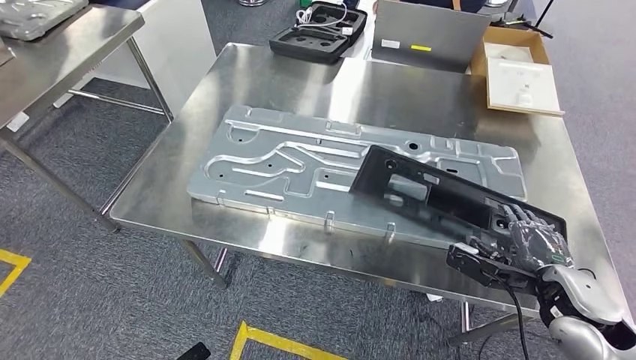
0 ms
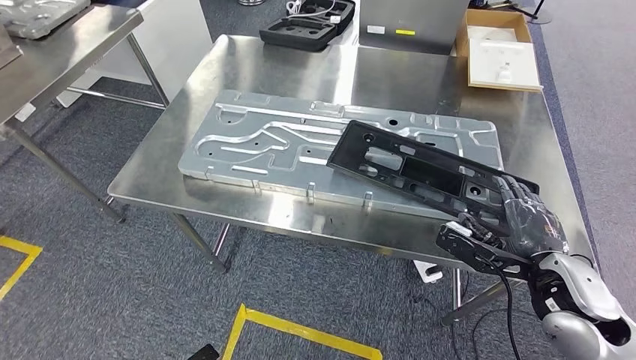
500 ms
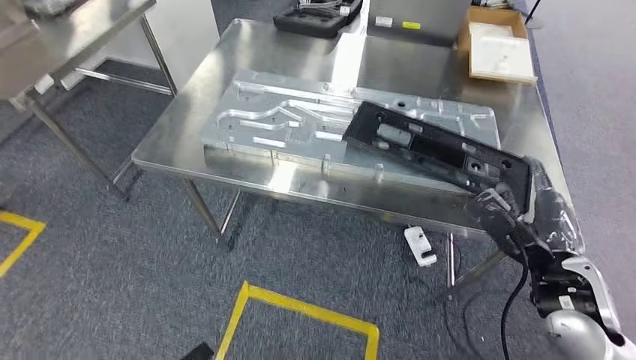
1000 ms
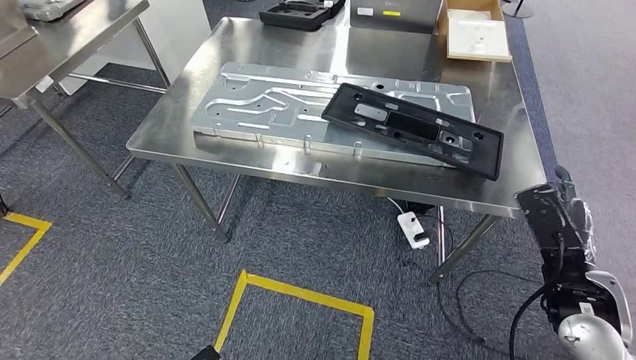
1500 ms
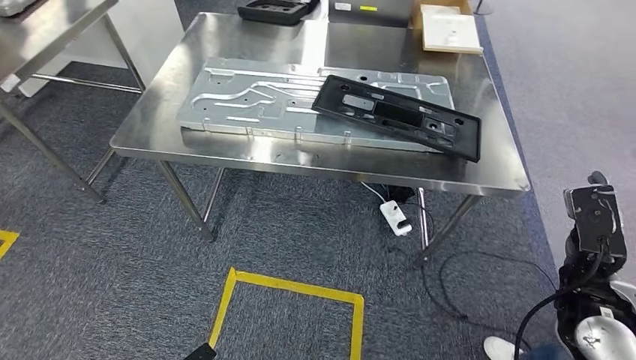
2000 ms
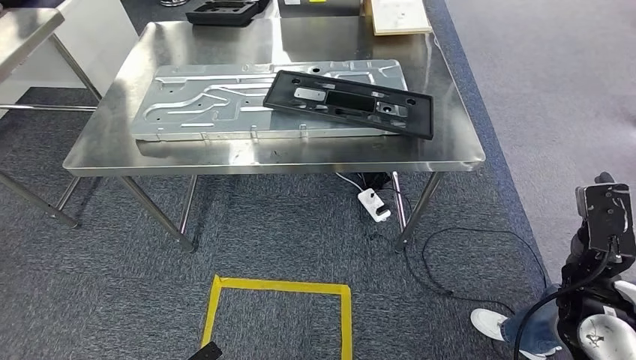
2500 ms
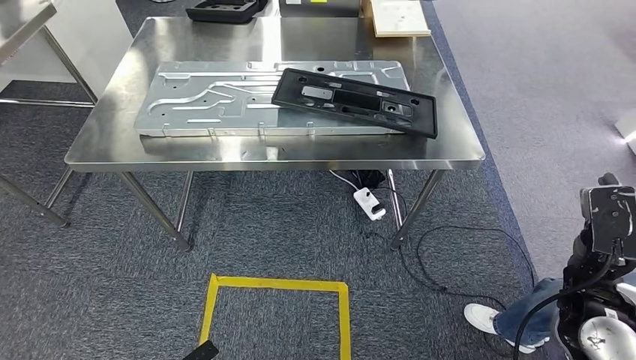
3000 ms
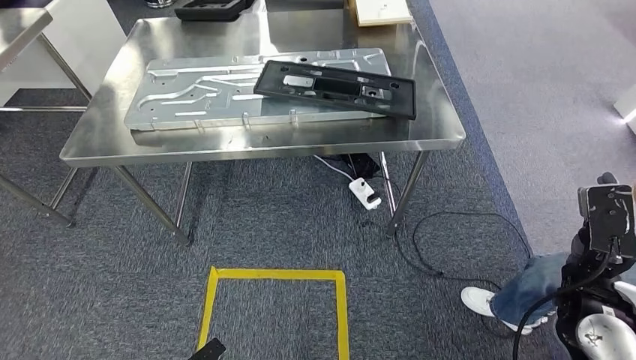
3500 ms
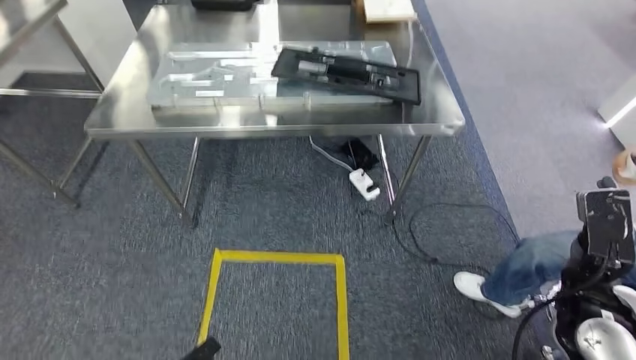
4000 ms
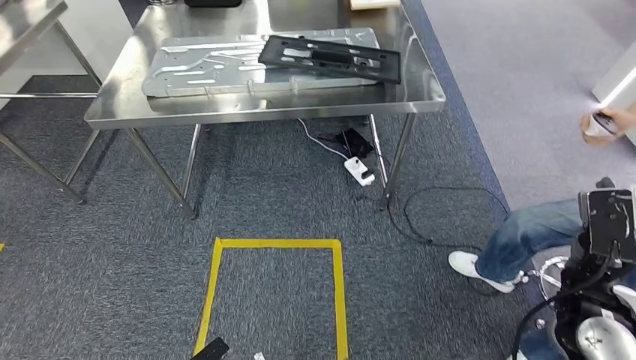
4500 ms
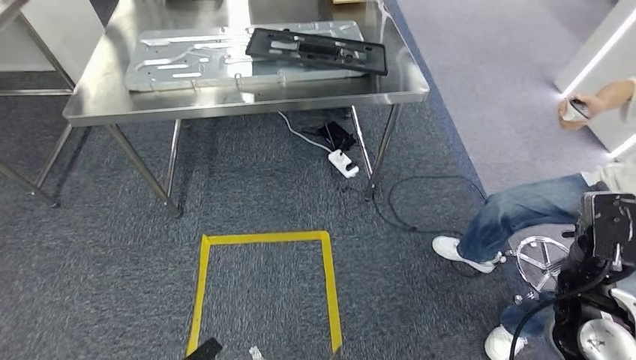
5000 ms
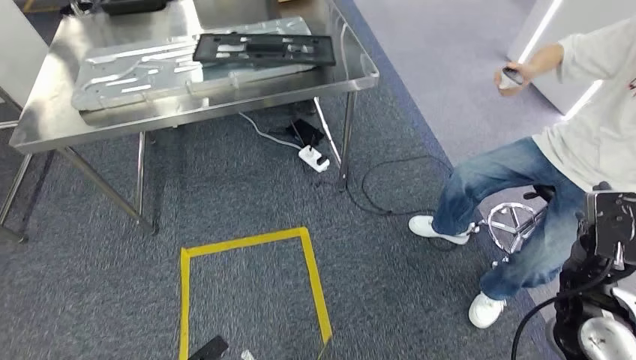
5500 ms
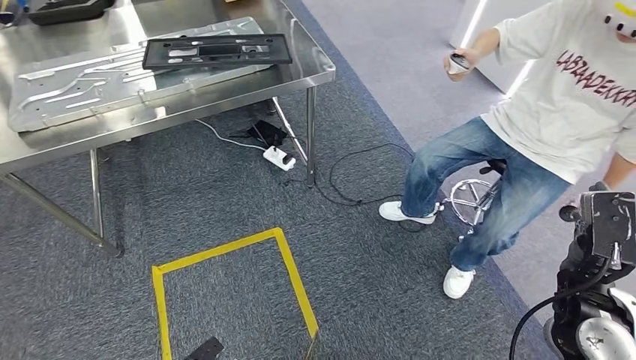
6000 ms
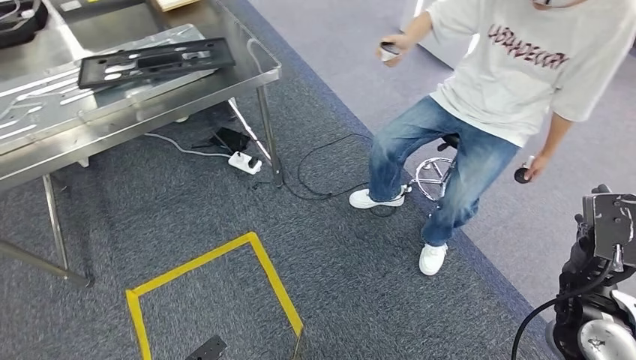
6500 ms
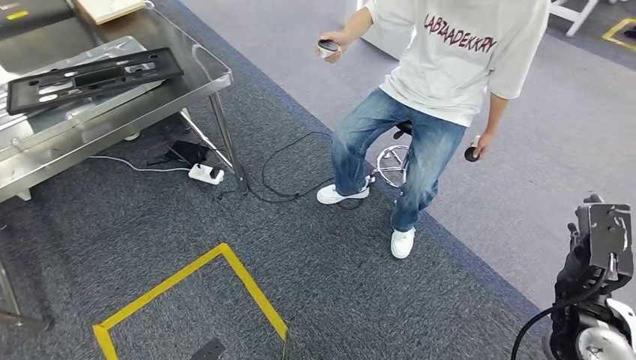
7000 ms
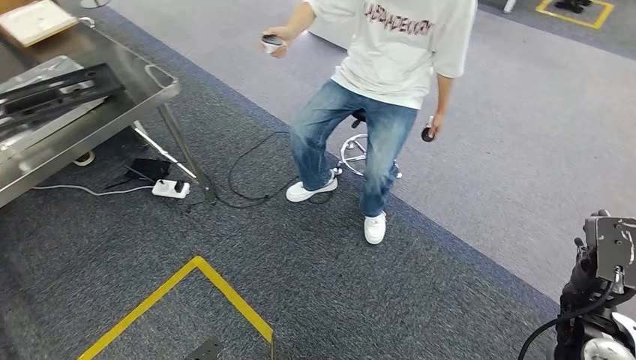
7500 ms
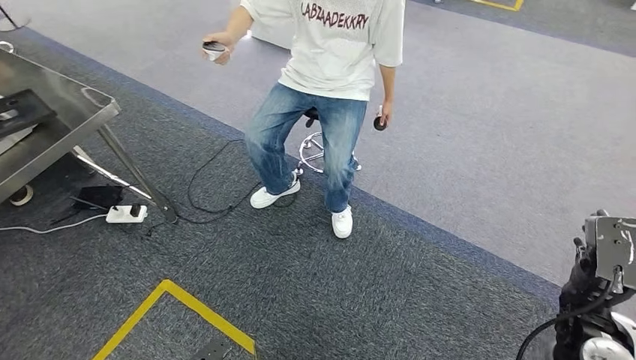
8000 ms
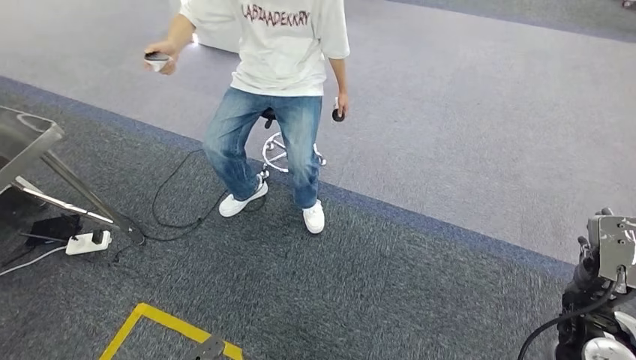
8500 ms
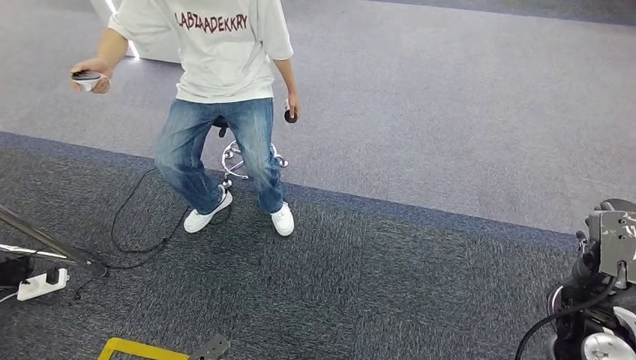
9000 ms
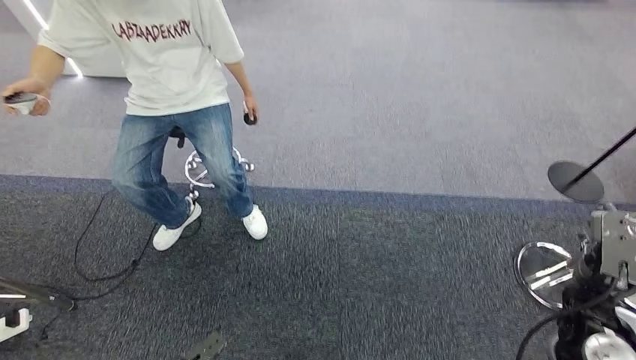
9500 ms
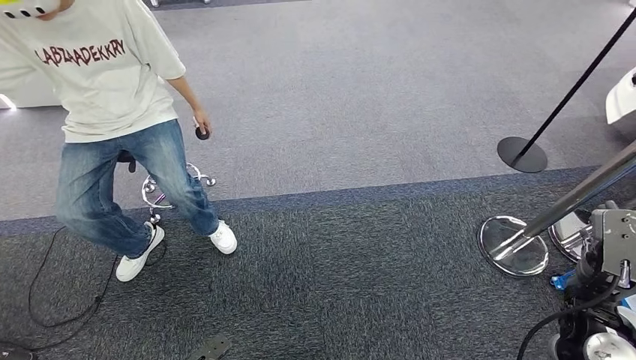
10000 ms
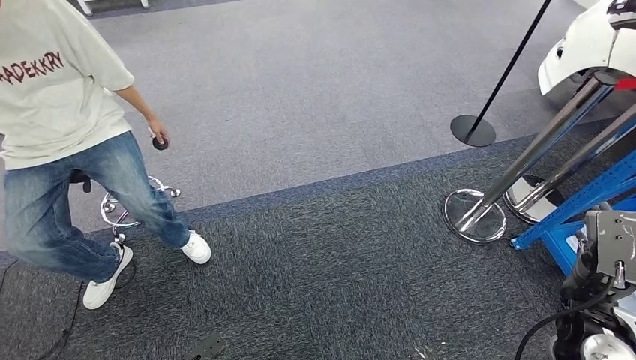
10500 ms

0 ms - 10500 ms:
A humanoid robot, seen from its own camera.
Step, 0 ms - 2500 ms: Insert the large material into the corresponding hole on the workbench.

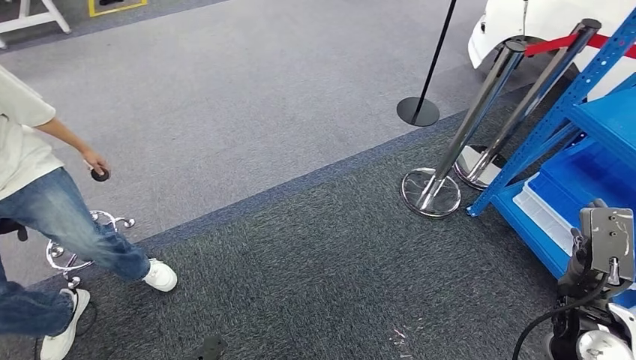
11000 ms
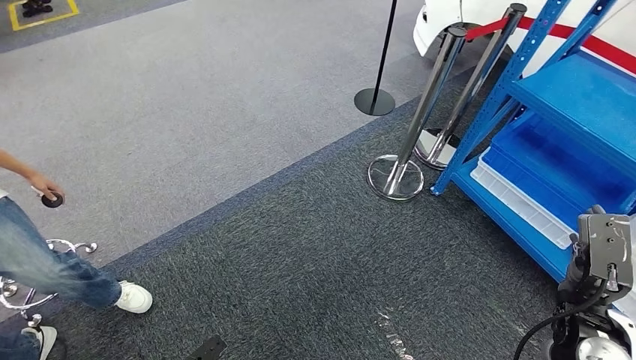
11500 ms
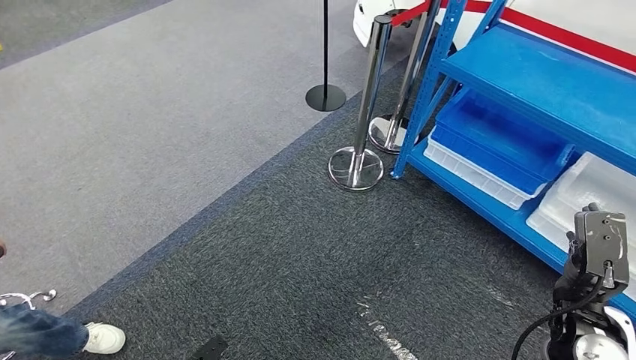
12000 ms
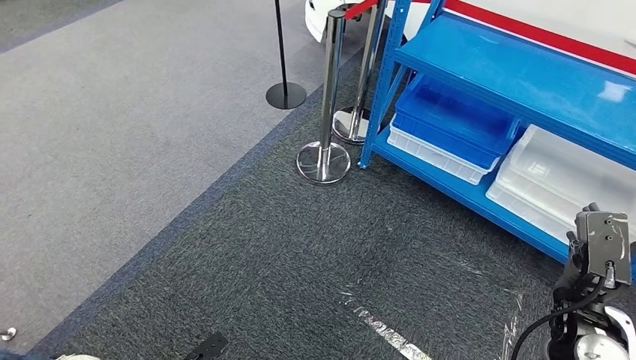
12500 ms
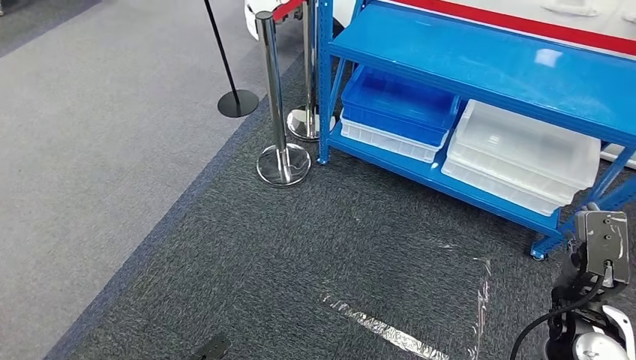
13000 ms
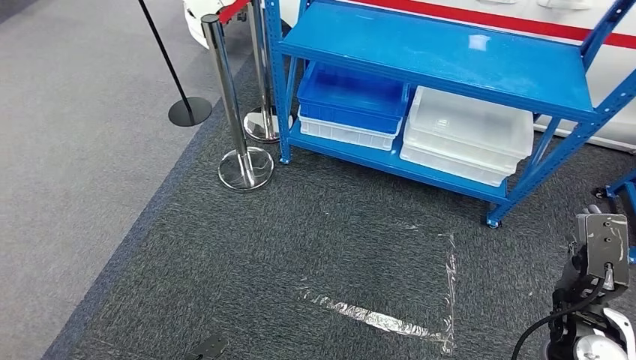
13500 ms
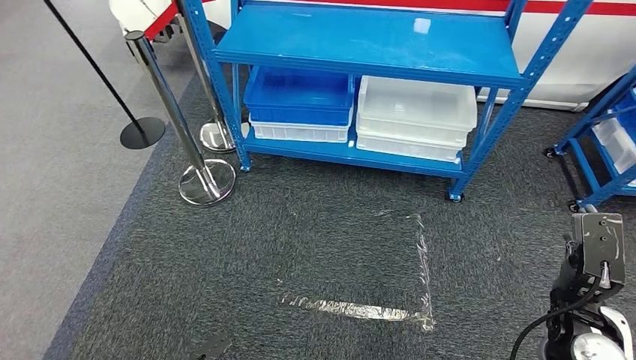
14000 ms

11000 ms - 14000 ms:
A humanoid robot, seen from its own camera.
Step, 11000 ms - 14000 ms: Move to the initial position of the shelf.
